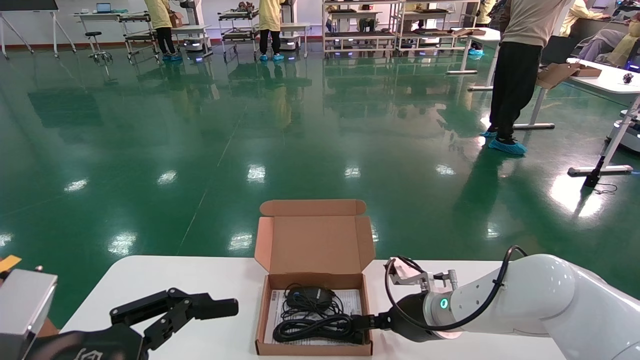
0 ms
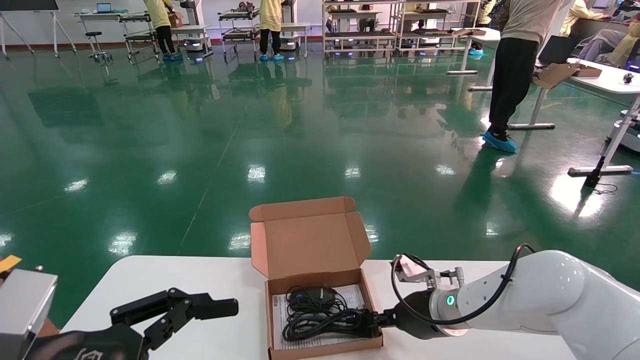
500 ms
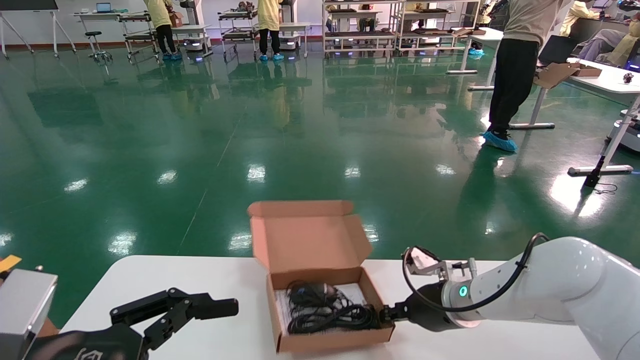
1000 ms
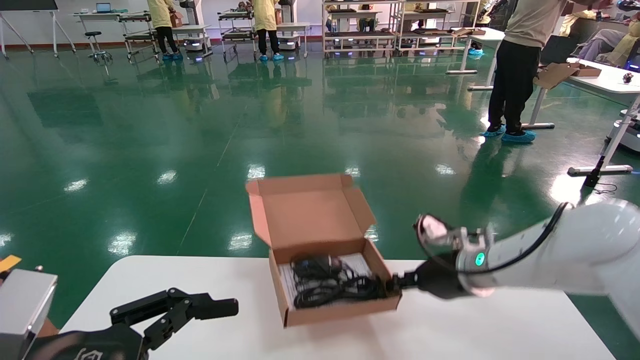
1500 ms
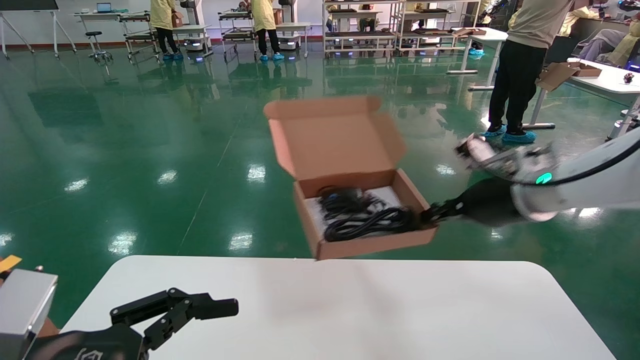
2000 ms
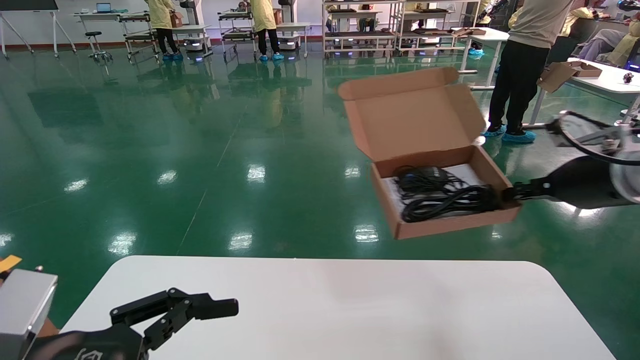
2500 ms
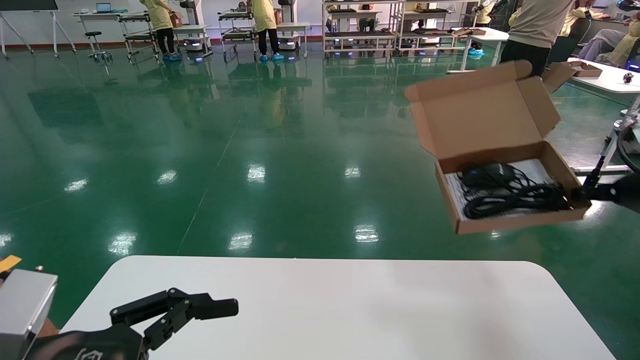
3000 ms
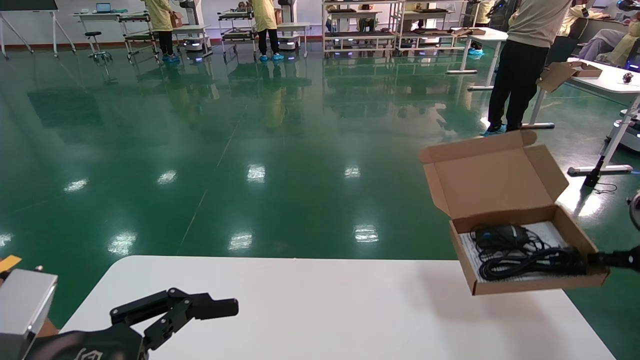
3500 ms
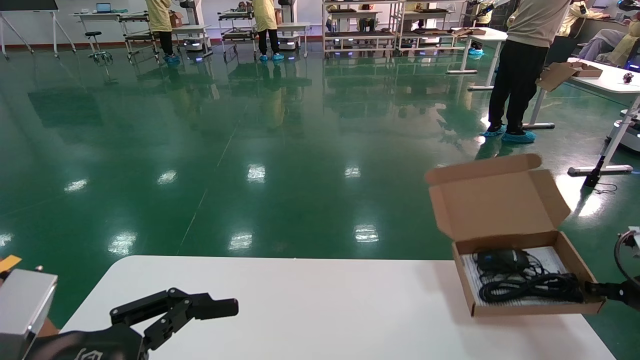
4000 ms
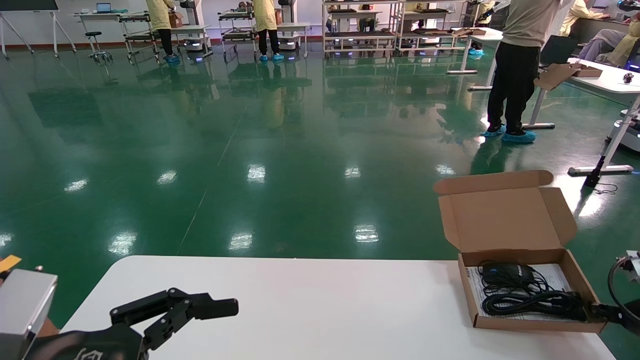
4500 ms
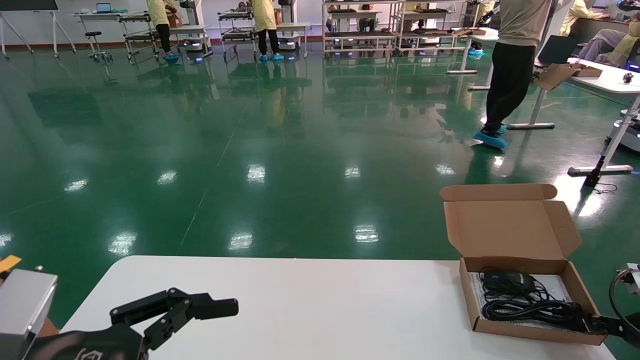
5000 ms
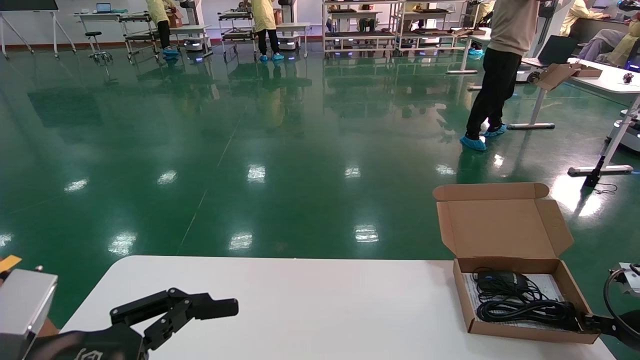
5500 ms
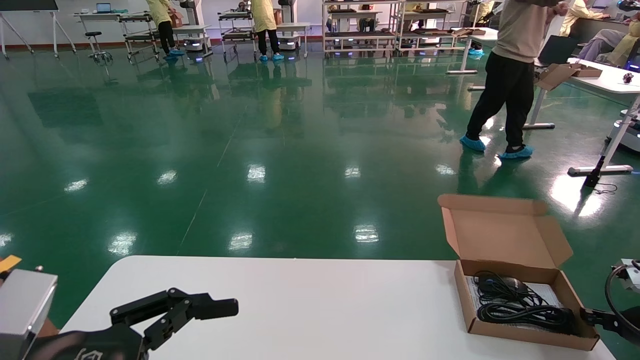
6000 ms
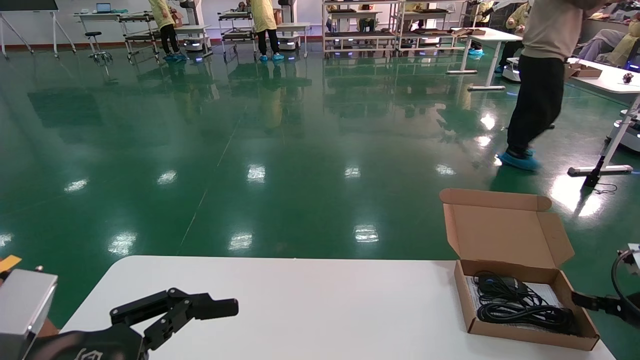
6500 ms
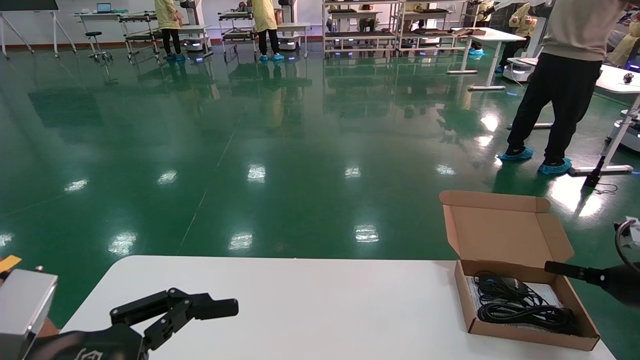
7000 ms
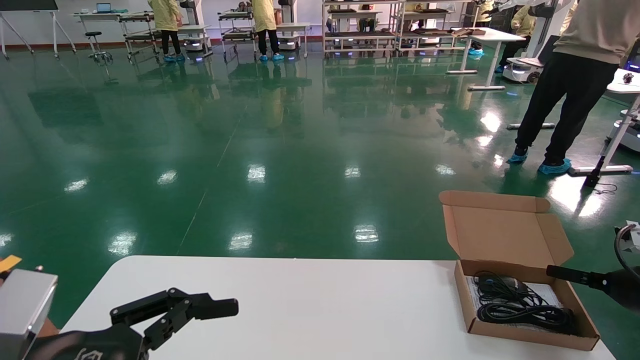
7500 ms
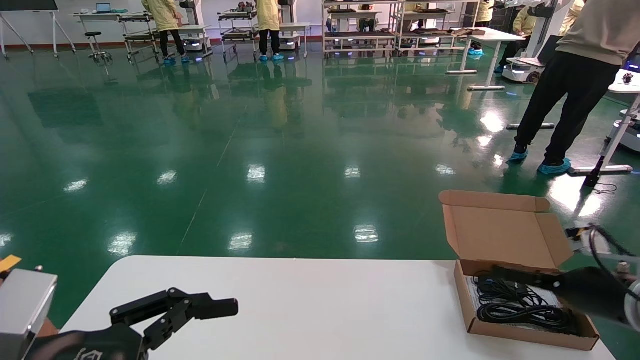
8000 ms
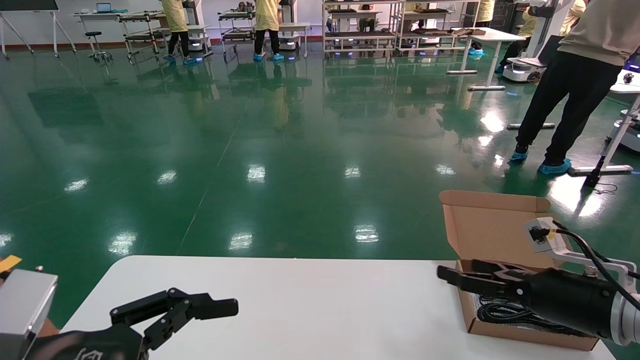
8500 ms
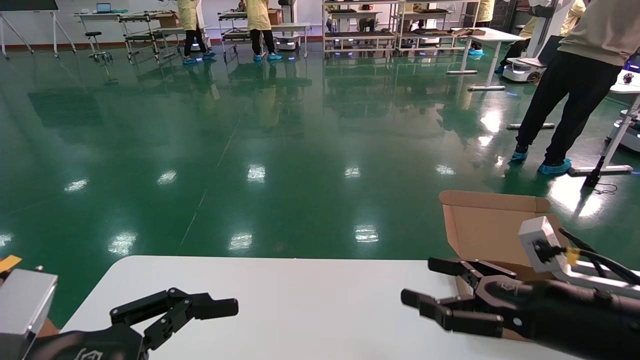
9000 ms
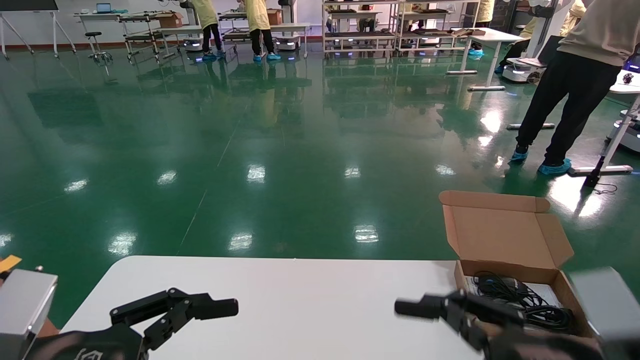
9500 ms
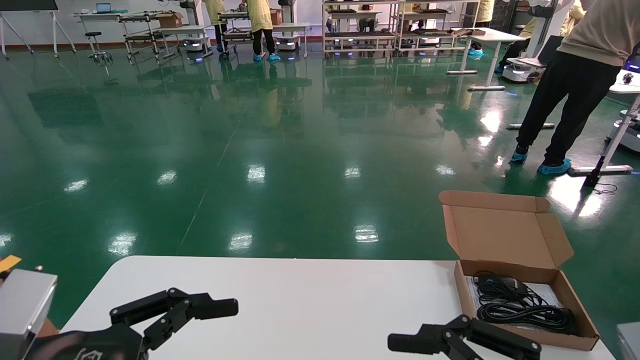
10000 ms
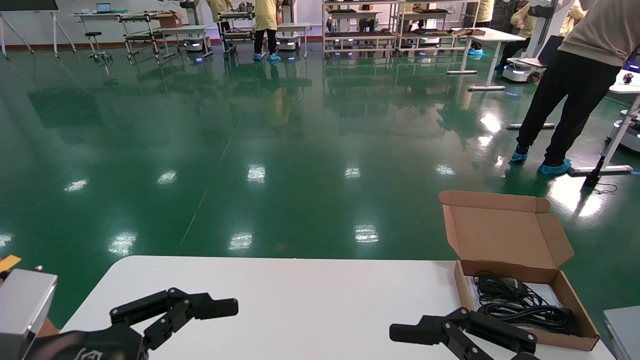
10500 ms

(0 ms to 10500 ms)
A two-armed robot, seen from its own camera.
Task of the whole recording: move the position of the storage box with accessories on the table.
Step, 1000 ms - 6000 ms: Place the open mouse box onto the operation table.
0 ms - 2000 ms: The right gripper travels upward and to the right by some 20 cm, and closes up.
2000 ms - 4000 ms: The right gripper goes approximately 25 cm to the right and downward.
4000 ms - 6500 ms: The right gripper opens.
6500 ms - 8500 ms: The right gripper shifts approximately 15 cm to the left, and opens its fingers.
8500 ms - 10500 ms: The right gripper goes roughly 20 cm backward and to the left.
